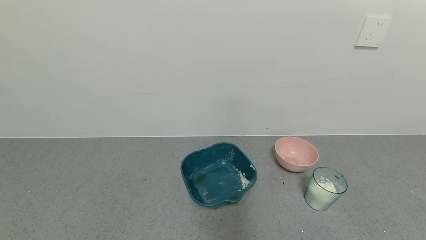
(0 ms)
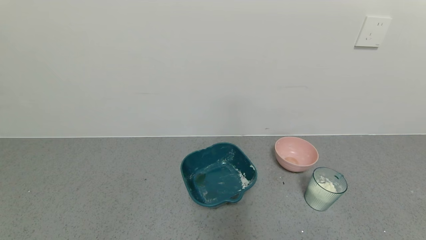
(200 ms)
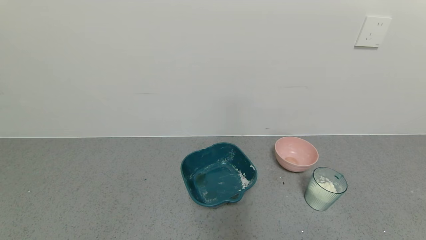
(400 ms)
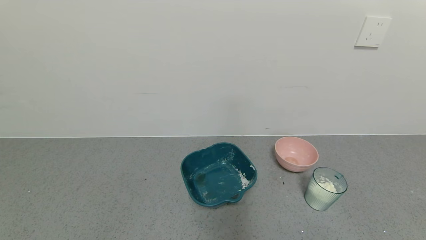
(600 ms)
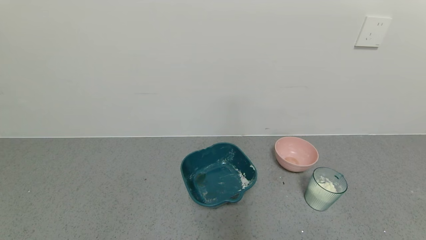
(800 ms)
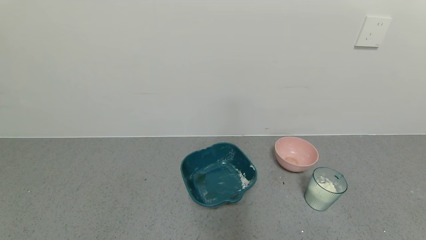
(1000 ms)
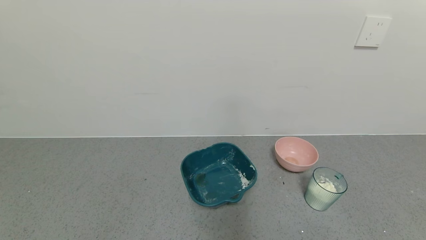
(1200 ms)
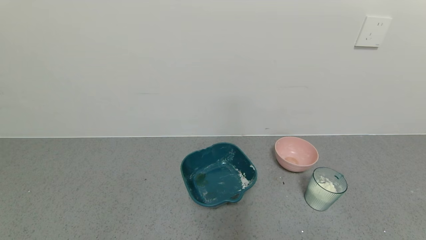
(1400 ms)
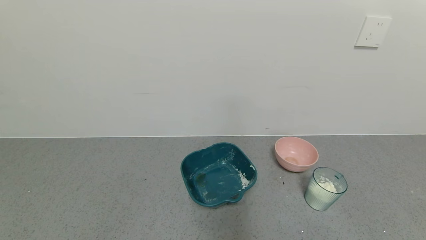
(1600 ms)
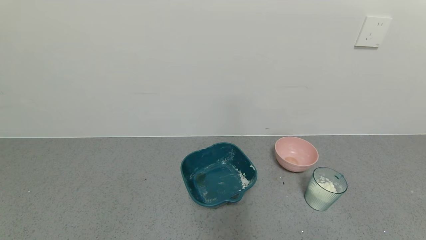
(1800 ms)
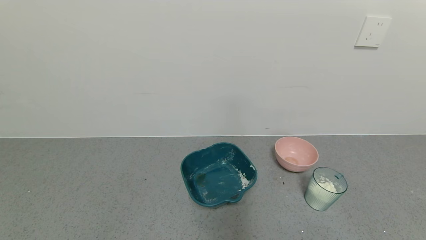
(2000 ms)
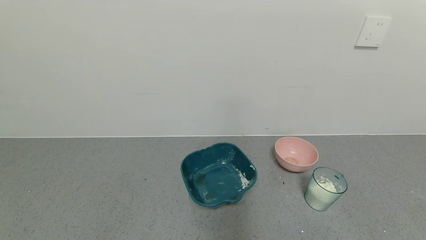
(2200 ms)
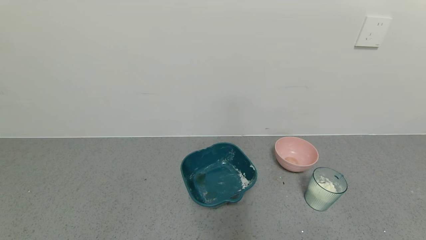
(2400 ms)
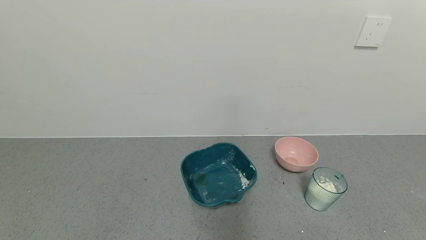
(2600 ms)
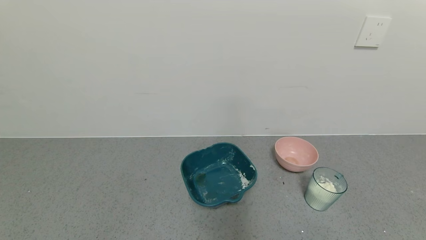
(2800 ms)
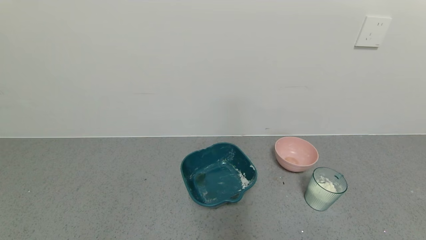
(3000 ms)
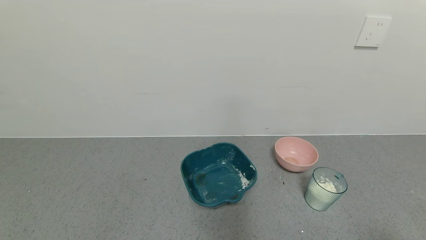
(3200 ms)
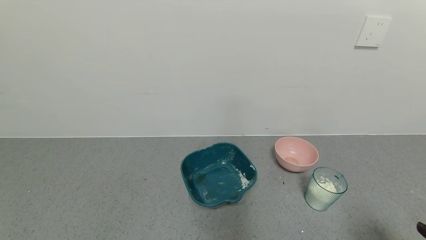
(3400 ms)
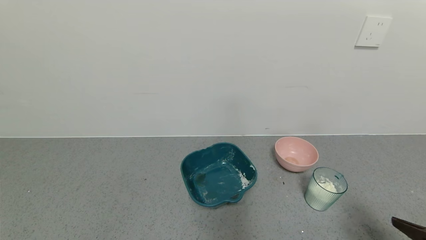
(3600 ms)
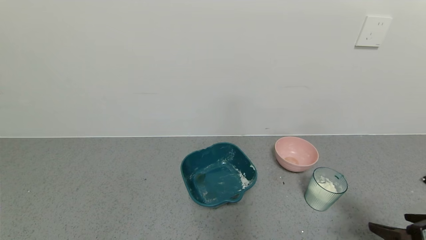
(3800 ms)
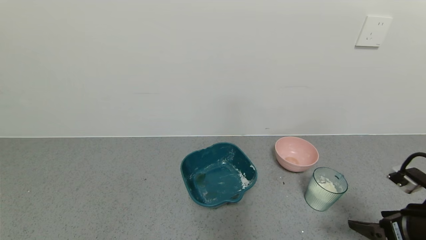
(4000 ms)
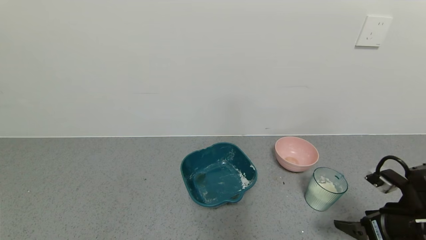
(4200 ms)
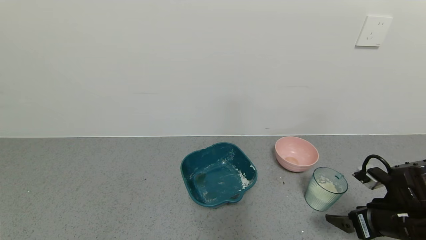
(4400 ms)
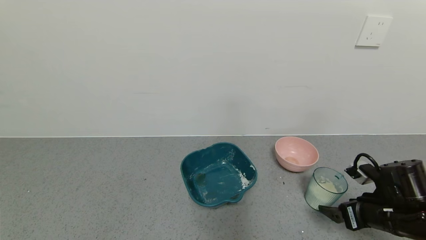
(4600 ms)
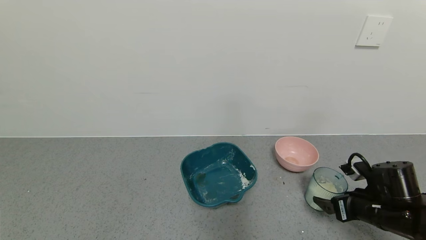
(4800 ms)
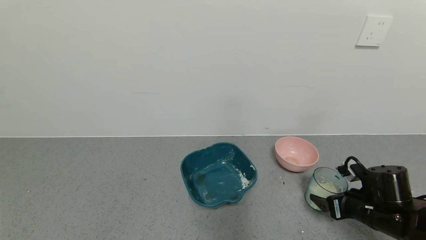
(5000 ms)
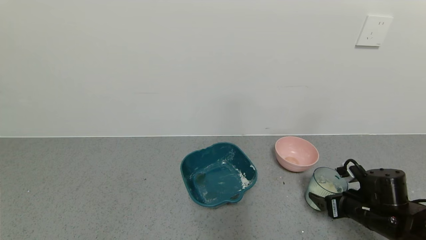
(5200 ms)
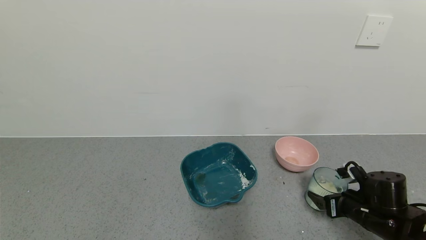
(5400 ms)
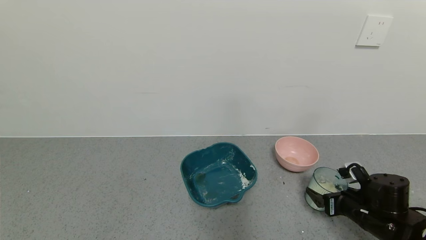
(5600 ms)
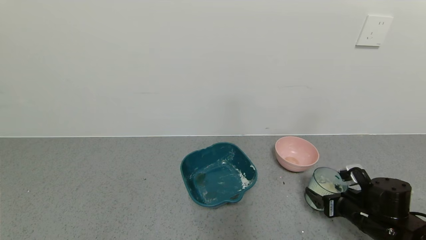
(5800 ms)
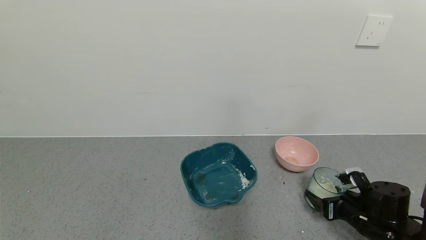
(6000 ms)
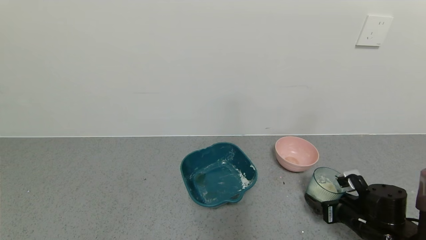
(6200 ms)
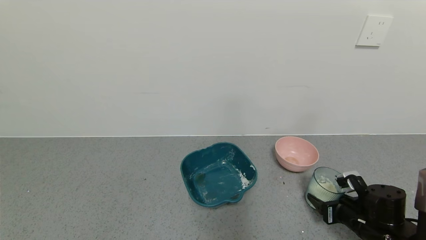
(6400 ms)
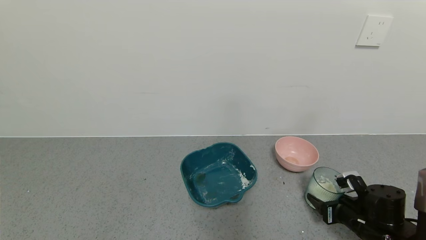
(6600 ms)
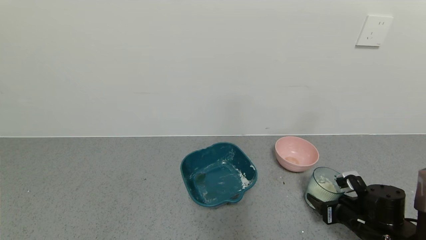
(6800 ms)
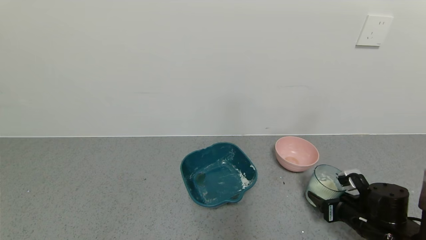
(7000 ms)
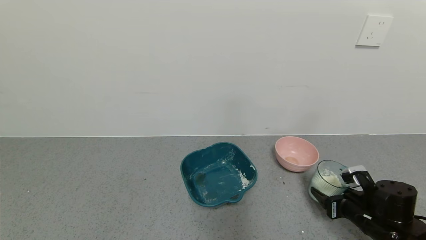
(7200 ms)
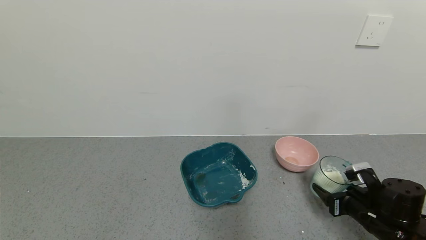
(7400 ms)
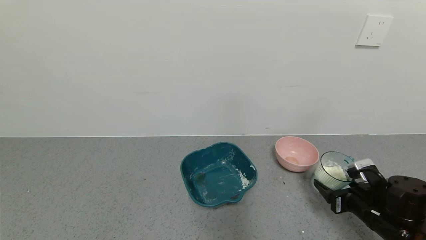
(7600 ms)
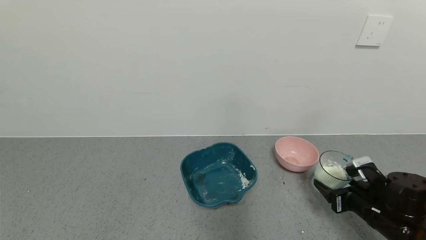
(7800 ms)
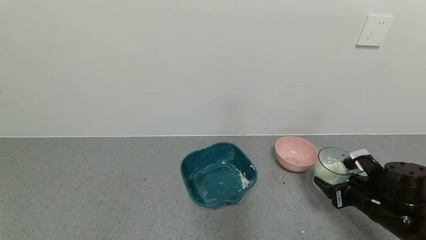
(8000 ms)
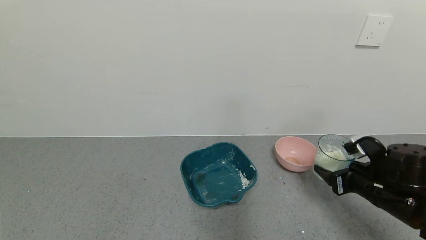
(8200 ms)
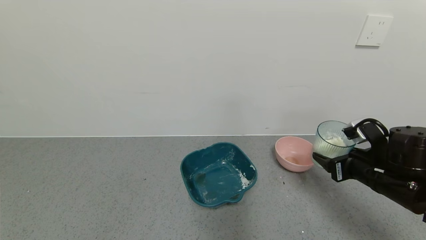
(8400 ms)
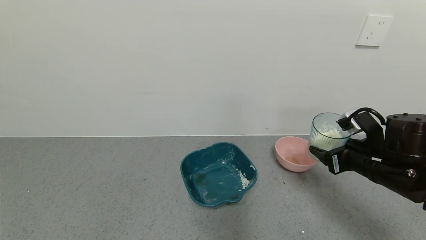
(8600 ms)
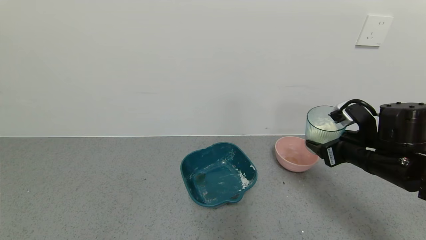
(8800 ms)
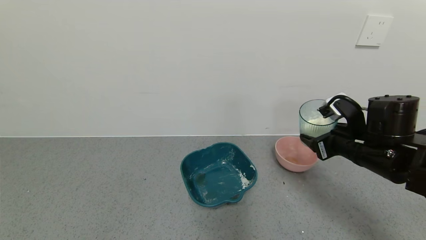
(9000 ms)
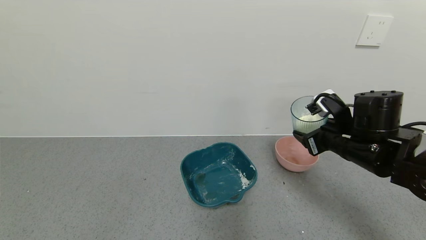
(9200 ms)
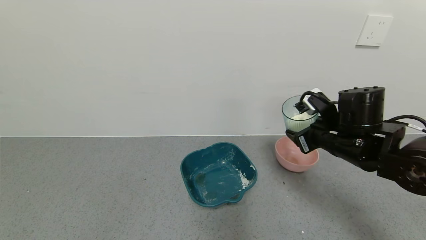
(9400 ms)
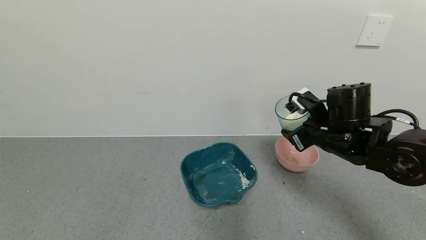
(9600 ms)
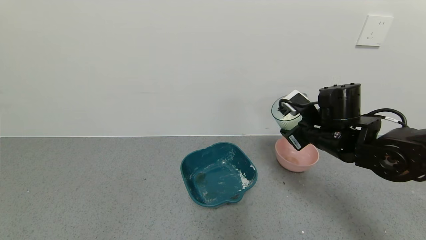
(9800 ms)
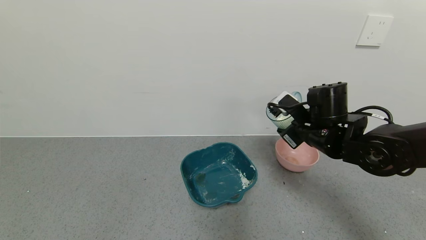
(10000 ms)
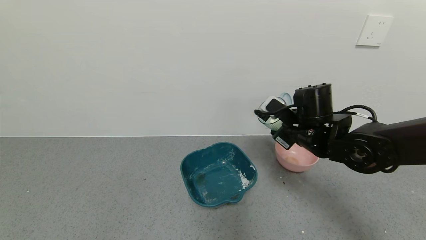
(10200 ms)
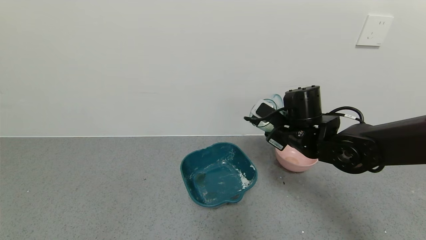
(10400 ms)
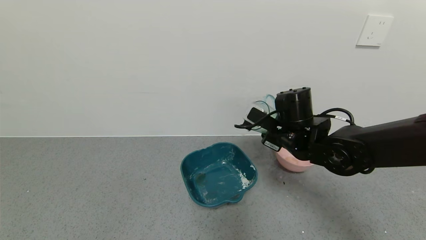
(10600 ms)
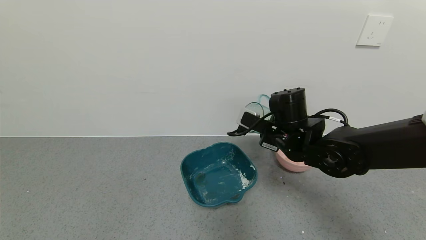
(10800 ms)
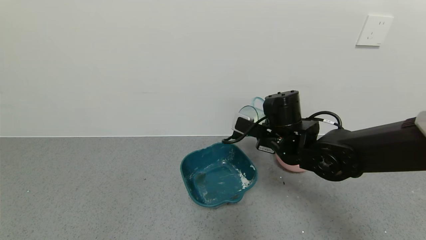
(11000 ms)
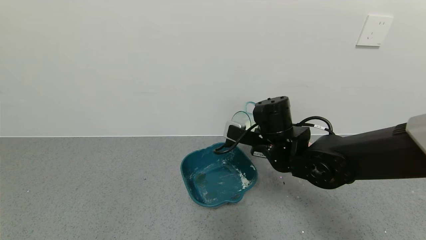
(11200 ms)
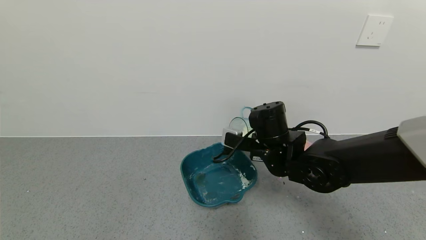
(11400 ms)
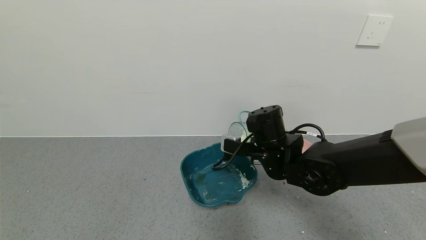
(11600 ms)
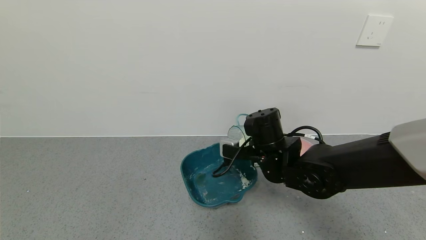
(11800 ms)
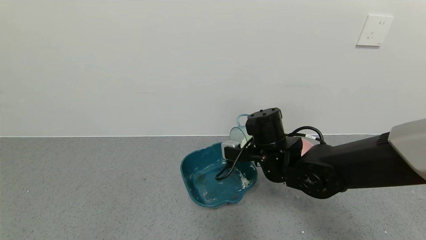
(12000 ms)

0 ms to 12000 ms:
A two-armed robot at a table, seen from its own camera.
Task of the whole recording: use a gripper to pick up the cup and pour the powder into a bowl or tray.
Step, 0 ms to 6400 ms: Grasp the glass of powder with the right gripper.
0 ms to 1600 ms: The two grippers keep their place.
3000 ms to 4400 ms: The right gripper moves forward, roughly 20 cm.
4400 ms to 6000 ms: The right gripper moves downward, about 10 cm.
6000 ms to 7600 ms: The right gripper closes.
7600 ms to 9000 ms: The right gripper moves upward and to the left, roughly 15 cm.
9000 ms to 10400 ms: The right gripper shifts about 10 cm to the left and forward.
10400 ms to 12000 ms: The right gripper goes about 5 cm to the left.

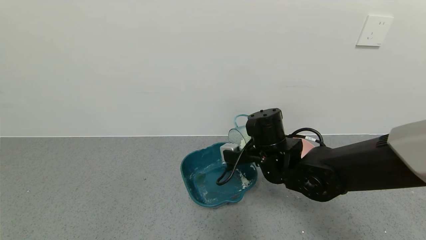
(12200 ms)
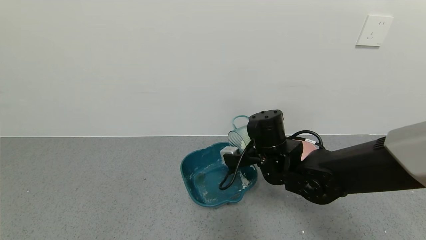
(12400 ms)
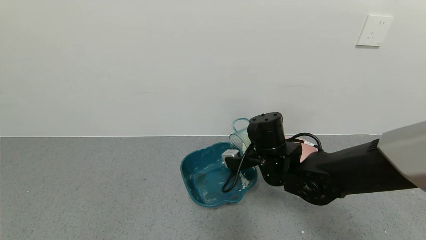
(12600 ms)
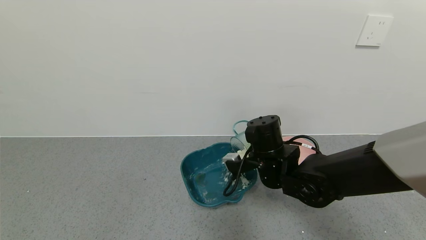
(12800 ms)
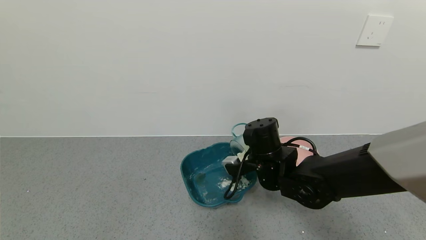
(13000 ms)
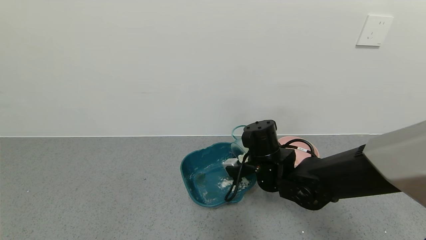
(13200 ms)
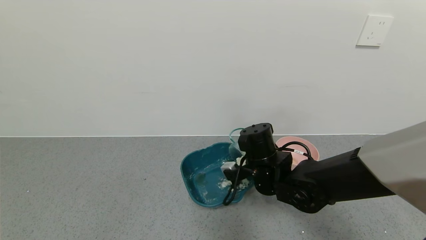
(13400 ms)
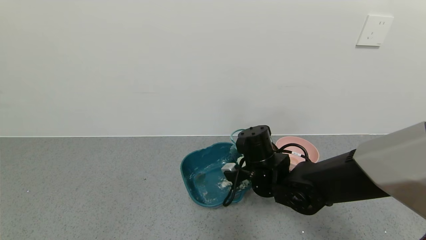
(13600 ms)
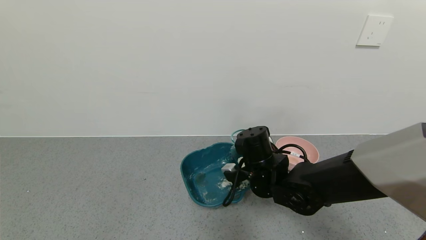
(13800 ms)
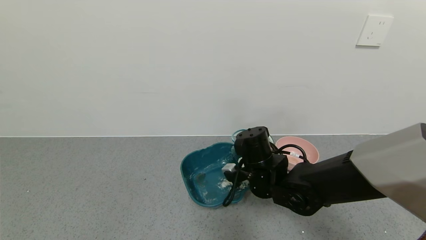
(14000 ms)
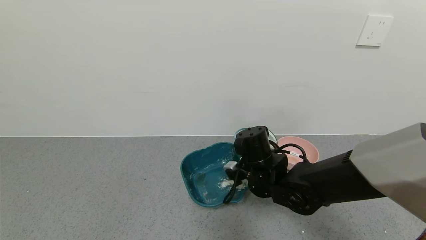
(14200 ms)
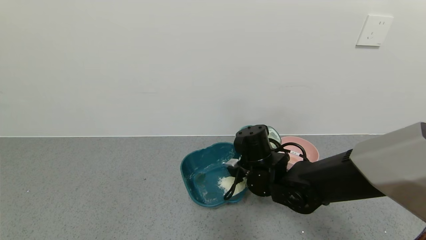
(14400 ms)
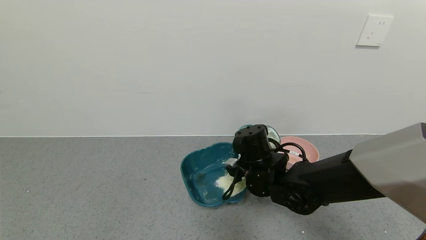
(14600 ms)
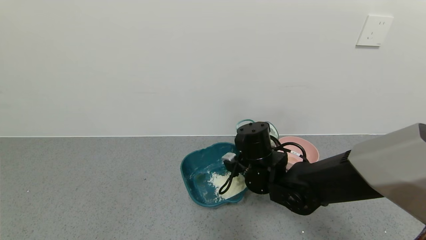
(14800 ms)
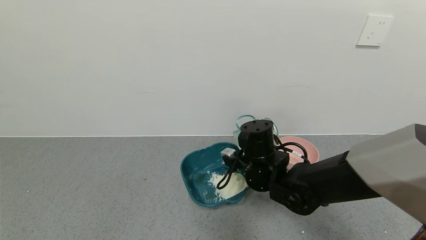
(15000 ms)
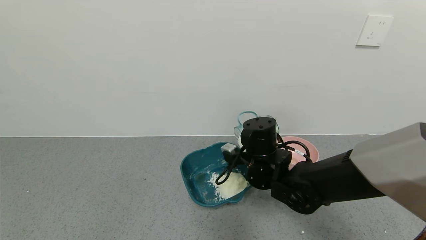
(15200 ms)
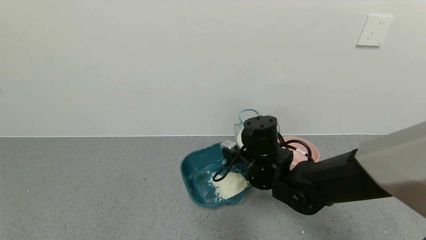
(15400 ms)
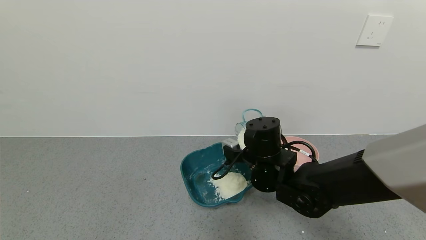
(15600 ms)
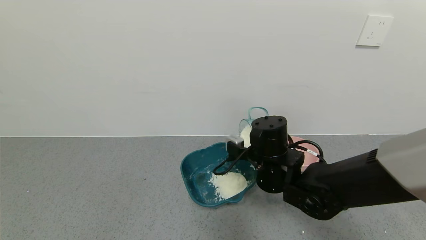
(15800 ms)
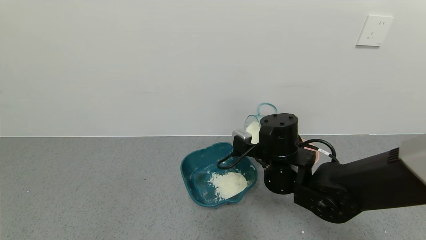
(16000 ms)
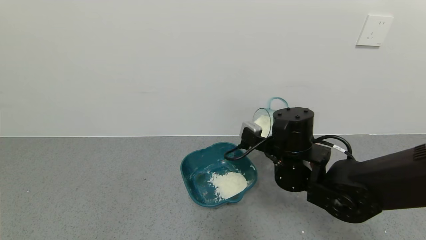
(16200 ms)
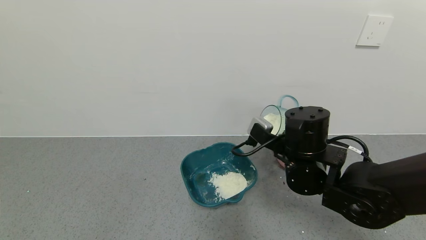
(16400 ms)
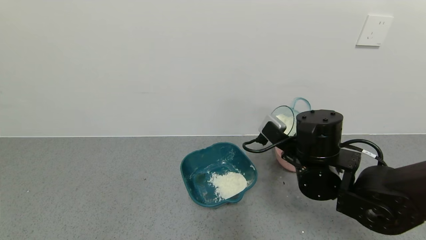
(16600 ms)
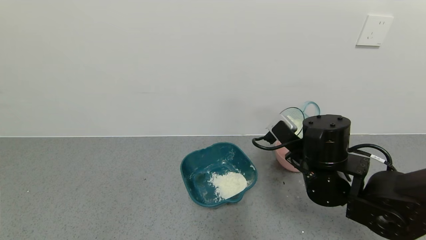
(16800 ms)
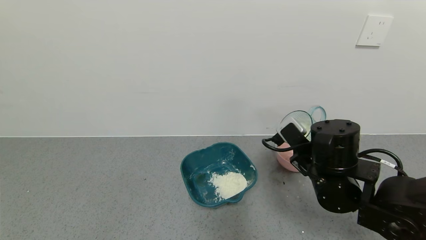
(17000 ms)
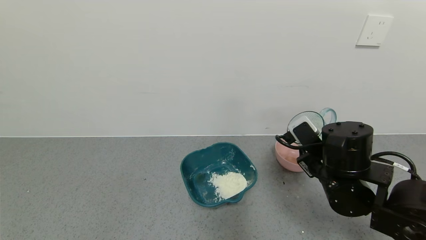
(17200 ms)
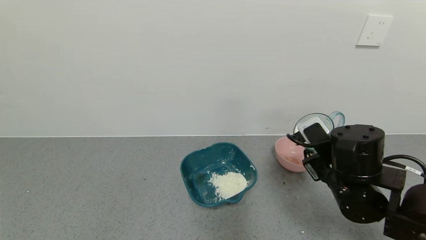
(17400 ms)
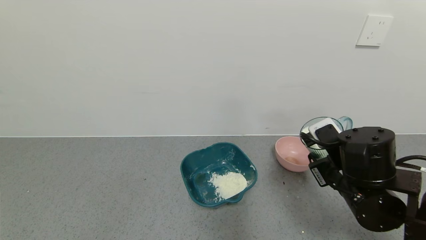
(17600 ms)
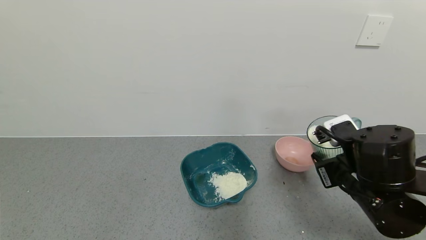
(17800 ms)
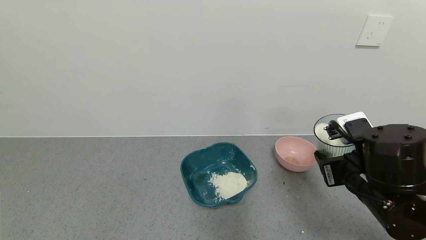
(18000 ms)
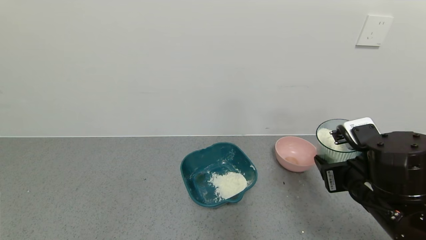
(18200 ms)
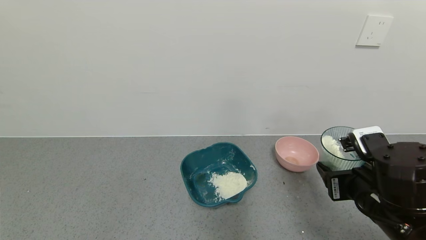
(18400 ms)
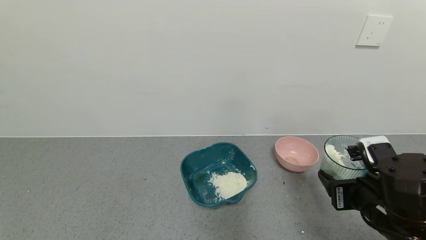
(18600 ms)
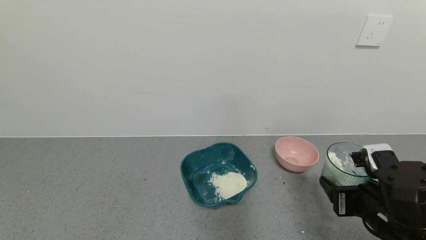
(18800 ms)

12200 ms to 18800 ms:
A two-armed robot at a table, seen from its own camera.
Task of the whole recording: use a gripper to pick up the cup and pour the powder into a bowl or tray.
Step, 12200 ms to 15000 ms: Pour the powder into the pink bowl with the right gripper.
15400 ms to 17200 ms: The right gripper heads to the right and backward, covering some 15 cm.
17200 ms to 18800 ms: The right gripper is displaced backward by approximately 10 cm.
